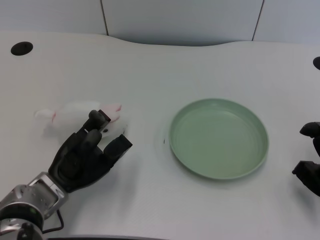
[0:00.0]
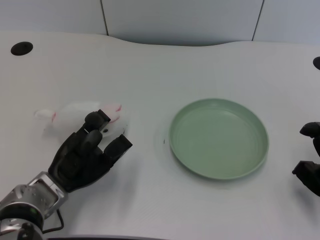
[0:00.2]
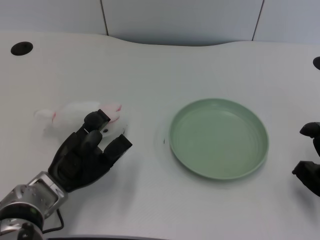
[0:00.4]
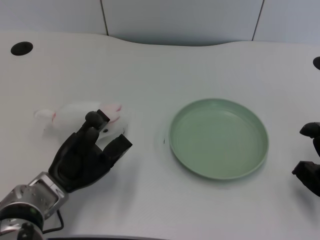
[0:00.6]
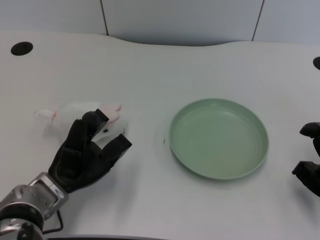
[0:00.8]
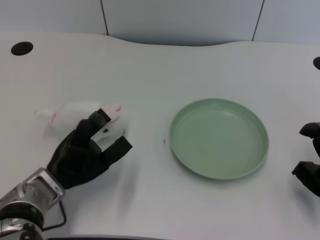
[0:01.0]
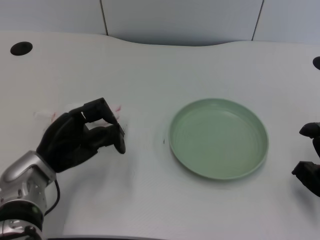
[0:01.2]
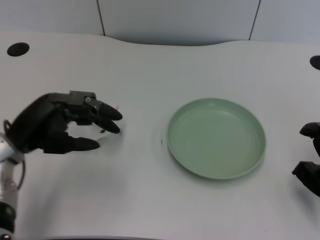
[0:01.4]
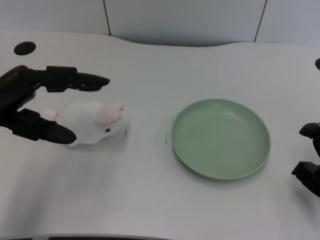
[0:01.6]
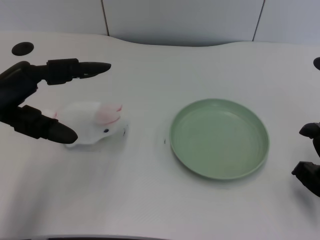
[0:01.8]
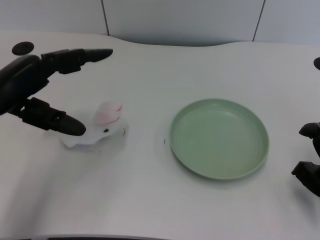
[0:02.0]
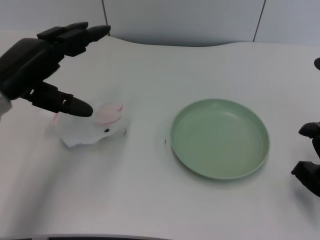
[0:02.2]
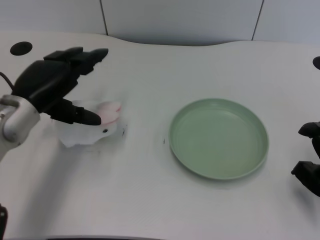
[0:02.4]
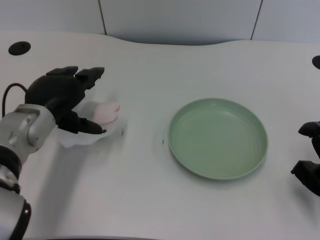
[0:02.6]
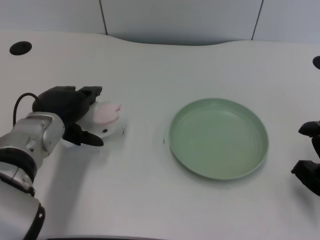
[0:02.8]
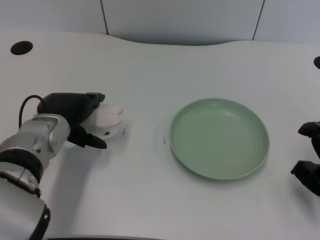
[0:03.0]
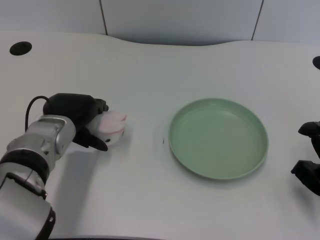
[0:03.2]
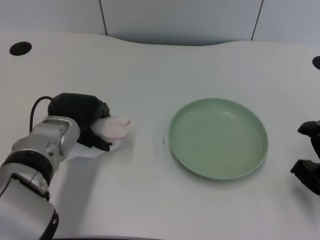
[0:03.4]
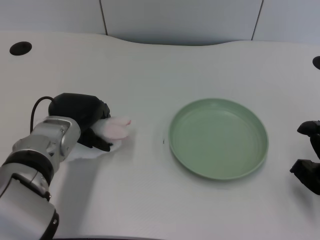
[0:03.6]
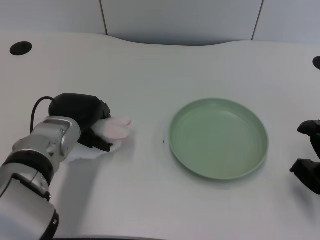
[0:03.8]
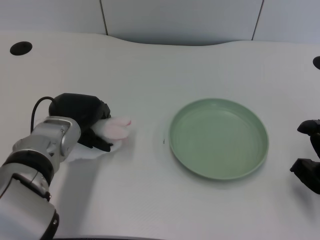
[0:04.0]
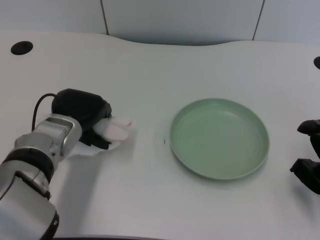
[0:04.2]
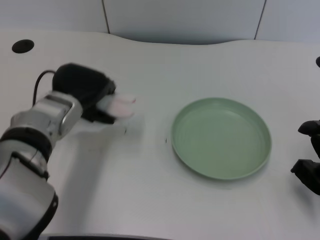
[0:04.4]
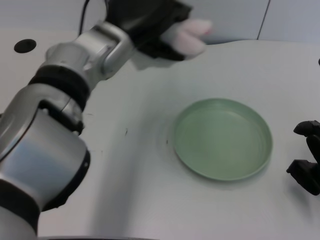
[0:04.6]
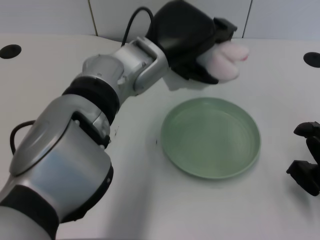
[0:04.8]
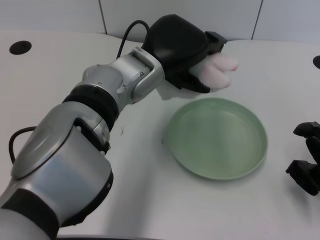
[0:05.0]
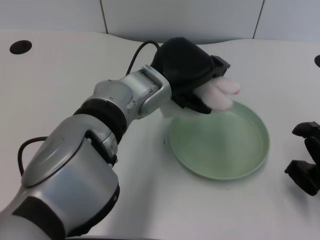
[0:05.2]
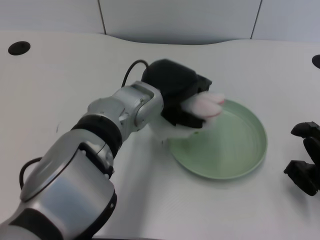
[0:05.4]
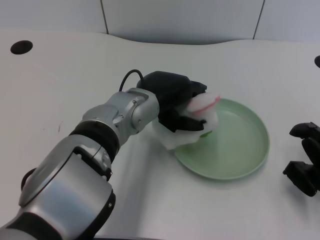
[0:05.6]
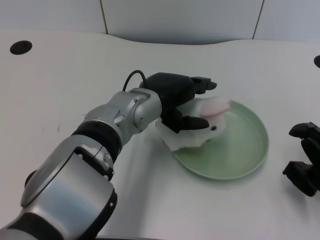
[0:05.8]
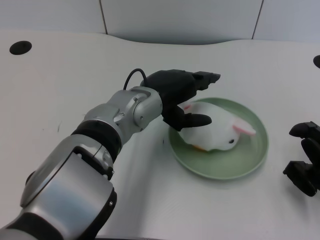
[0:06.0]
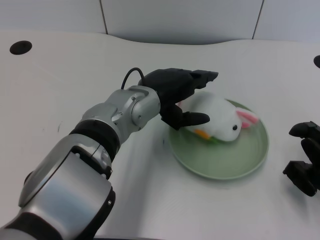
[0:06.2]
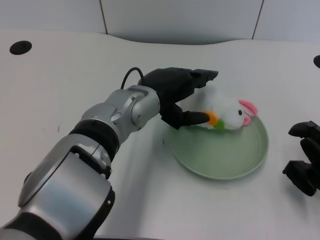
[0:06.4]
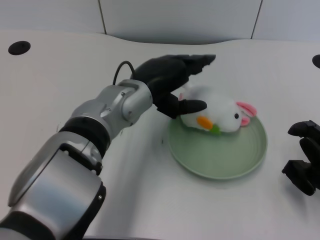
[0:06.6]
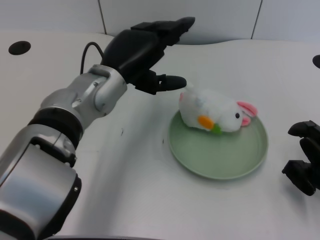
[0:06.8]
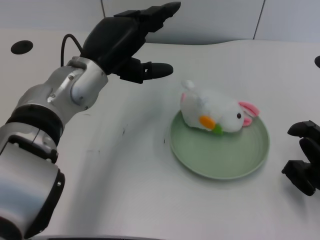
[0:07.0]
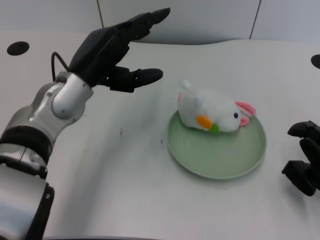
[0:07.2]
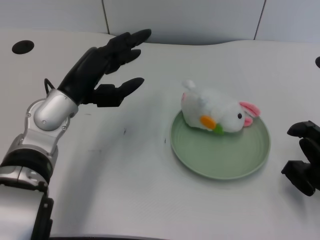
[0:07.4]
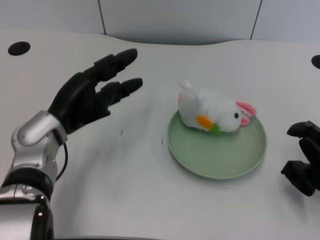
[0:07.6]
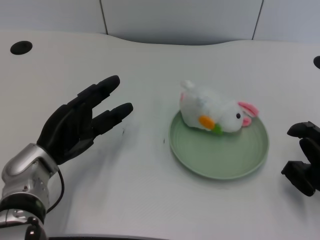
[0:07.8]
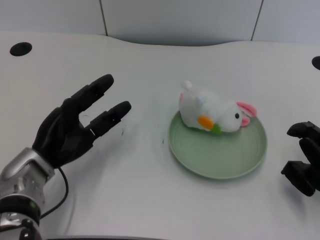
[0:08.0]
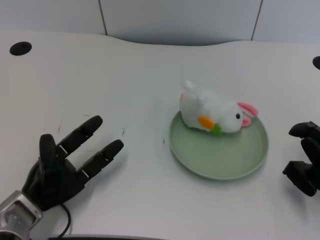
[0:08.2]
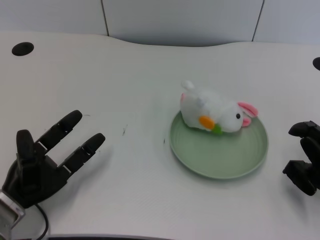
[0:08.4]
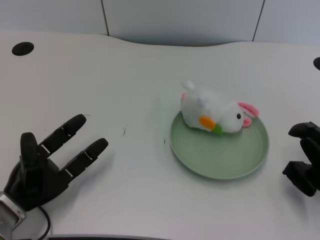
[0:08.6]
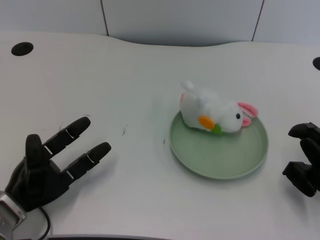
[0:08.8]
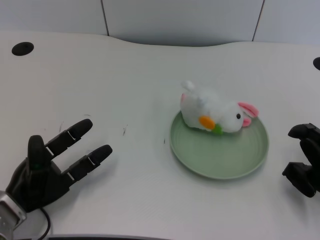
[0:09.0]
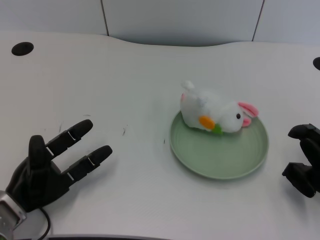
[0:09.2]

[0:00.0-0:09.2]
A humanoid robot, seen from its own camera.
Task of the whole recording: pick up the rabbit doll from the table and place it on the plate.
Step, 0:01.2 to 0:04.2: Grasp the rabbit doll with the left gripper.
Step, 0:04.4 to 0:05.8: Place the rabbit doll into the plate with the left gripper.
0:01.6 to 0:03.0: The left hand is displaced to the right and downward by approximately 10 cm.
0:03.0 to 0:04.6: The left hand moves upward and to the right, roughly 15 cm.
0:04.6 to 0:06.2: The left hand shifts about 5 cm downward.
0:06.2 to 0:07.6: The left hand moves to the left, some 15 cm.
0:07.6 to 0:09.2: The left hand travels downward, backward and to the left by some 15 cm.

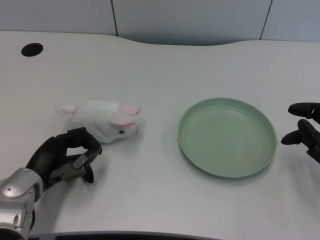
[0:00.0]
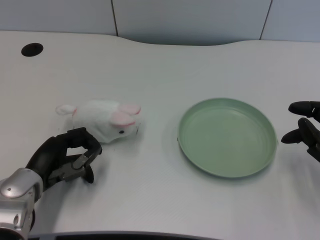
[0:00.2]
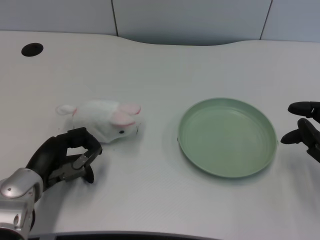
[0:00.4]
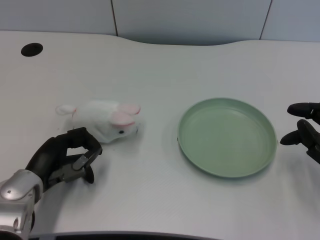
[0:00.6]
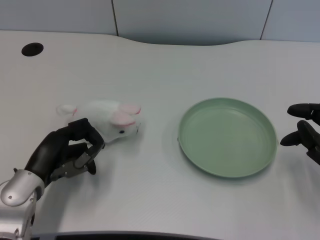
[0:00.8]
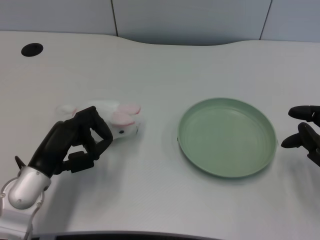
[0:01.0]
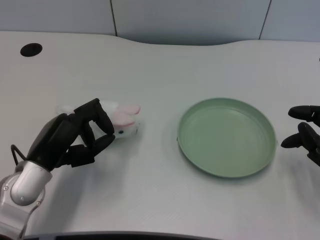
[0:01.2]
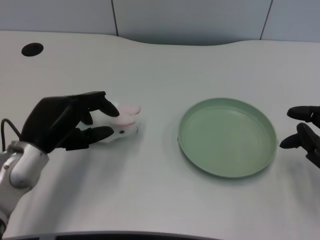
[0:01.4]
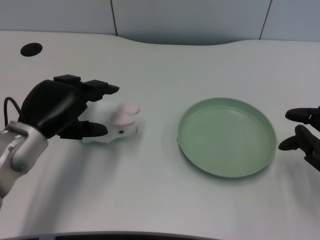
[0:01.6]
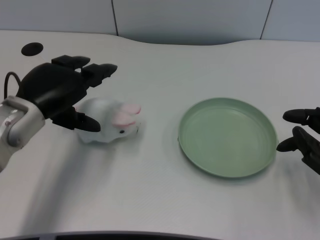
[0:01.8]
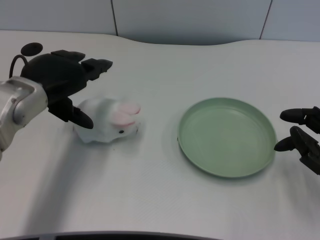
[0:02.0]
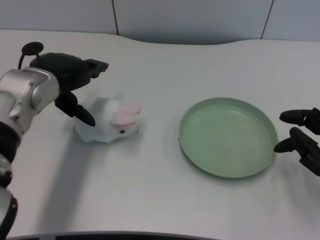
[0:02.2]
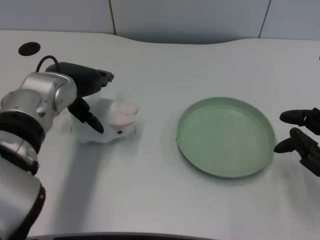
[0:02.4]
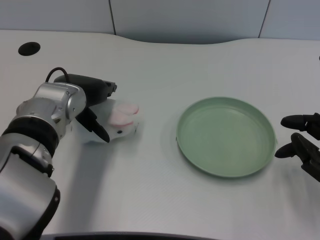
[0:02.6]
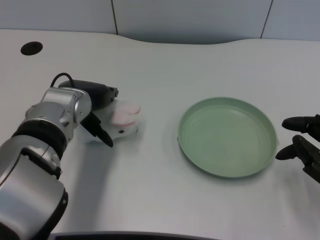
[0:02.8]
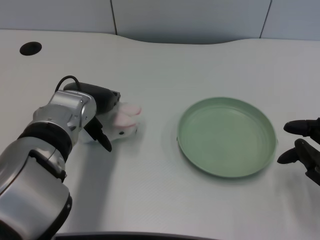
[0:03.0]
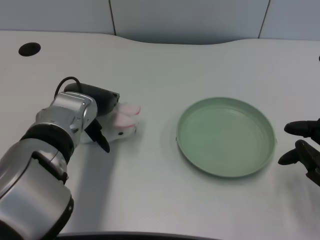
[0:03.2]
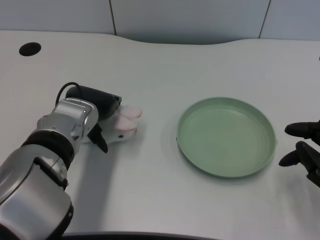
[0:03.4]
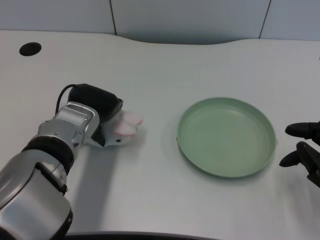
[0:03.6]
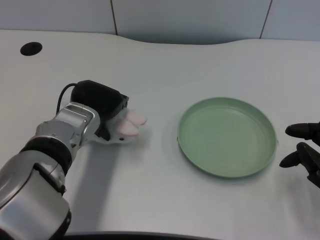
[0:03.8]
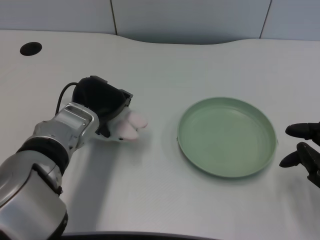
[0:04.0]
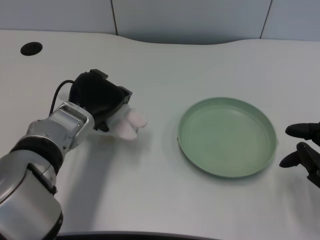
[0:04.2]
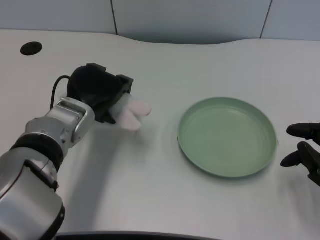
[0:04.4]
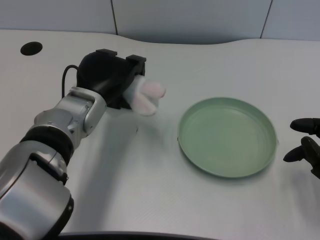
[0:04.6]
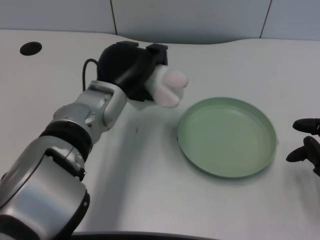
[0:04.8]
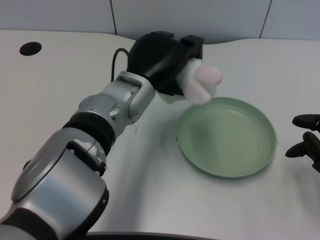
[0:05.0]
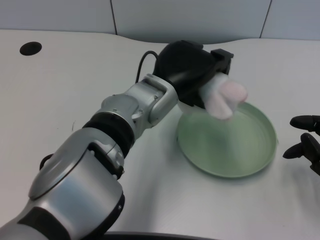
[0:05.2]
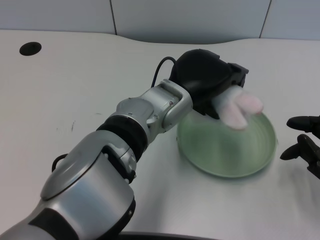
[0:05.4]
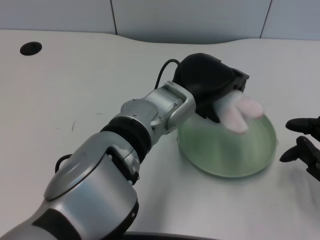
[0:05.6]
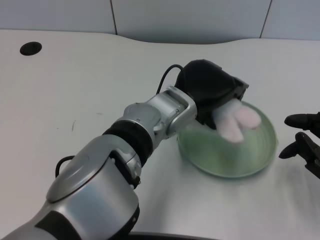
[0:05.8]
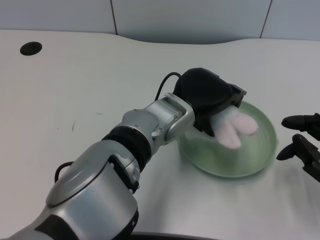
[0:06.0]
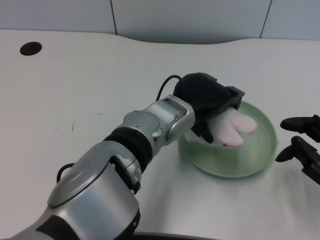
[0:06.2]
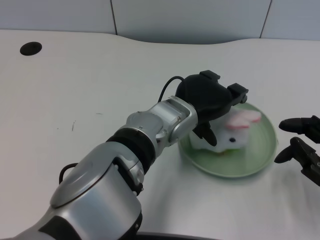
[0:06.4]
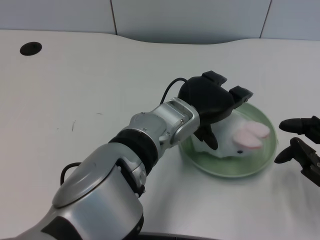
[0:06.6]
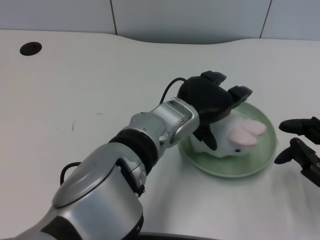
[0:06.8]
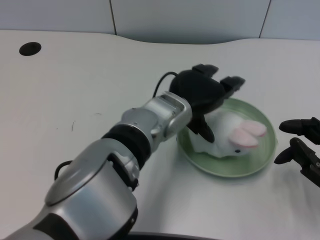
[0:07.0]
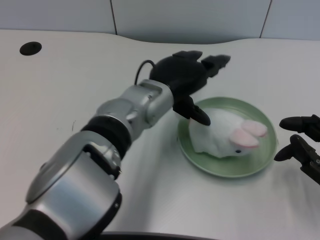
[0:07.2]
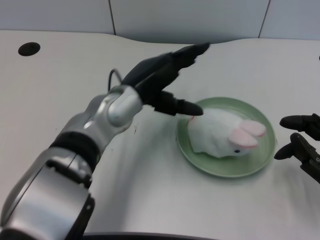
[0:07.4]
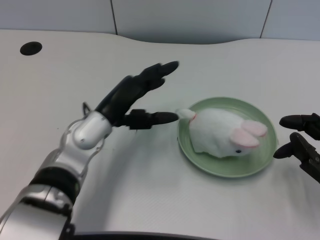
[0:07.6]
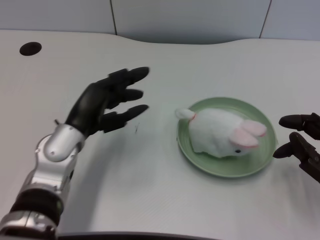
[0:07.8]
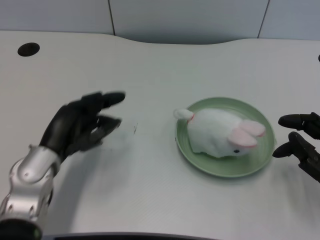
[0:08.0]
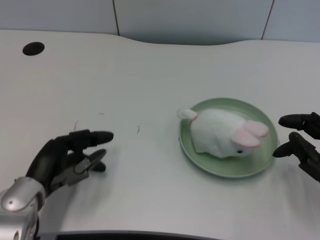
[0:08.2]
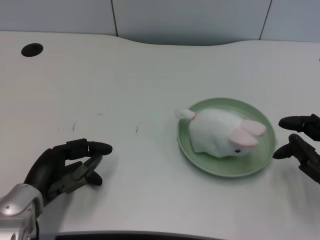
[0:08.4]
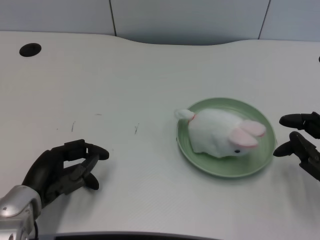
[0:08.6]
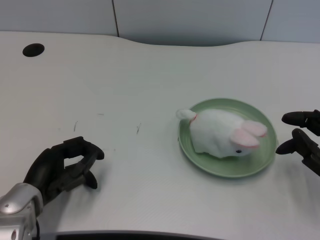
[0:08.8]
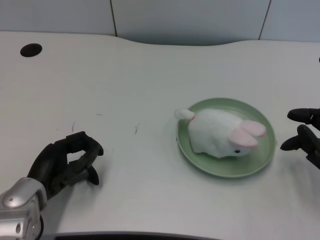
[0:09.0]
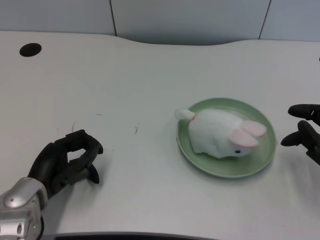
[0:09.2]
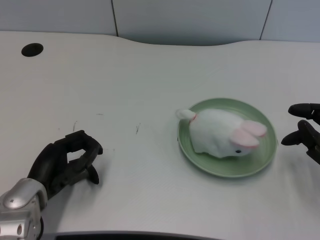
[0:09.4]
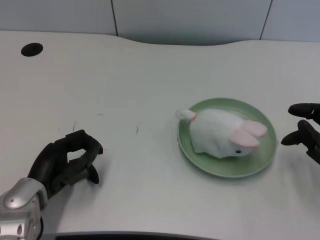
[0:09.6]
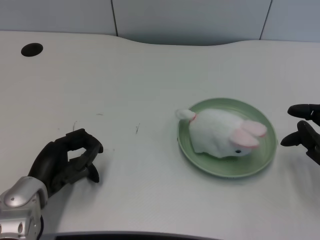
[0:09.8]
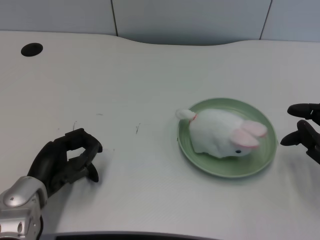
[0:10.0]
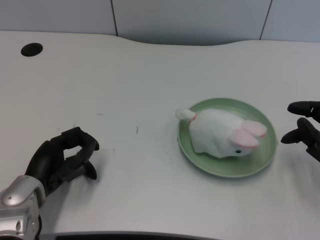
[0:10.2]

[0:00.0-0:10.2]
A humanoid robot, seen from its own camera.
Task of the whole recording: pick up the rabbit doll from the table and place it on the plate.
Step, 0:00.8 to 0:04.0: Grasp the rabbit doll with the left gripper.
Step, 0:04.2 to 0:06.8: Place the rabbit doll into the plate with the left gripper.
0:01.4 to 0:03.0: The left hand is displaced to the right and forward by roughly 10 cm.
0:04.4 to 0:05.8: The left hand heads to the right, covering roughly 15 cm.
0:07.2 to 0:08.8: The left hand moves to the left, downward and backward, about 25 cm.
0:08.8 to 0:10.2: The hands make only small movements.

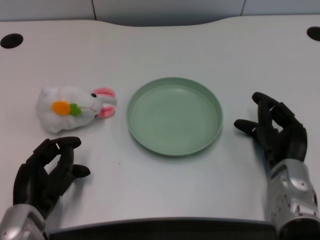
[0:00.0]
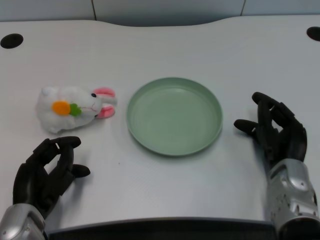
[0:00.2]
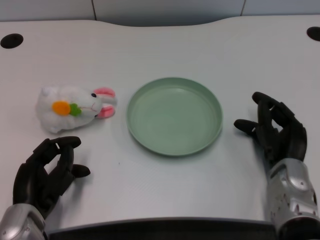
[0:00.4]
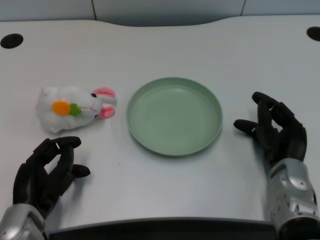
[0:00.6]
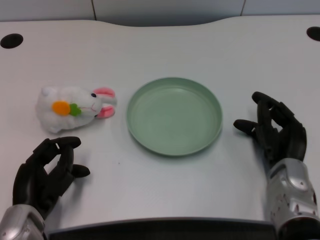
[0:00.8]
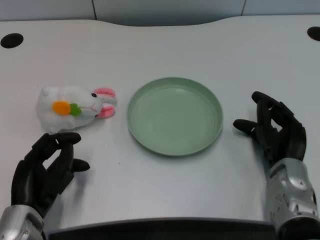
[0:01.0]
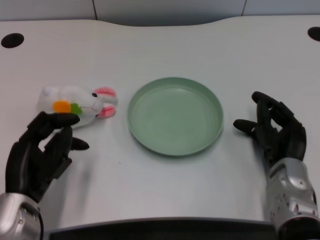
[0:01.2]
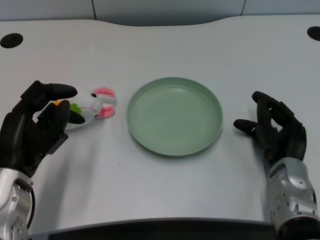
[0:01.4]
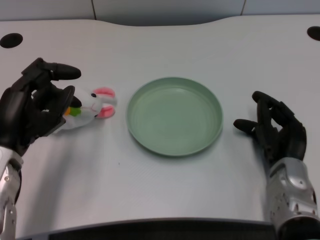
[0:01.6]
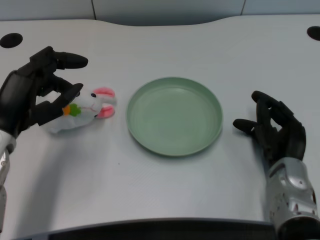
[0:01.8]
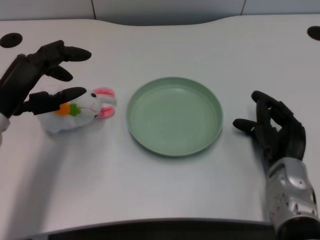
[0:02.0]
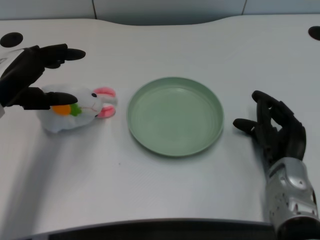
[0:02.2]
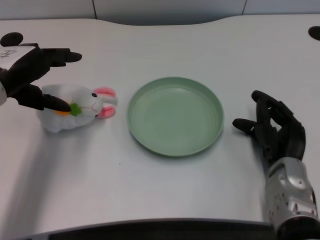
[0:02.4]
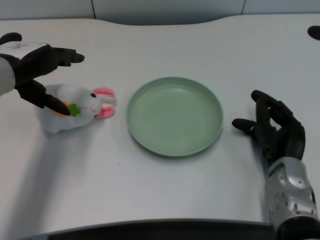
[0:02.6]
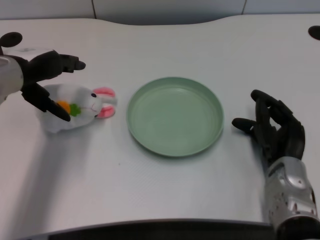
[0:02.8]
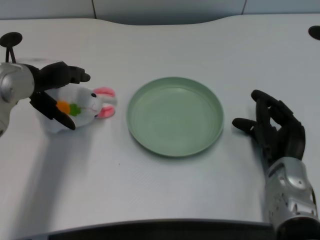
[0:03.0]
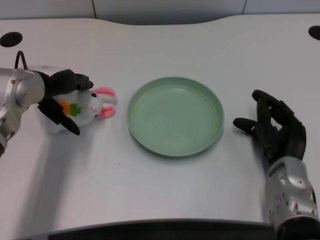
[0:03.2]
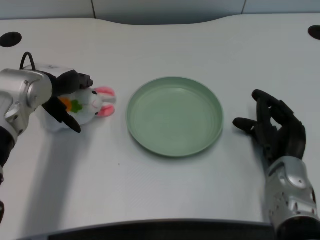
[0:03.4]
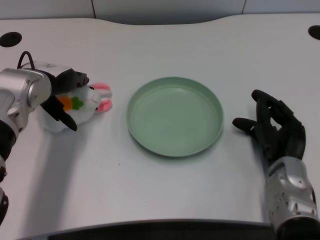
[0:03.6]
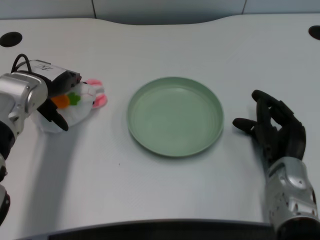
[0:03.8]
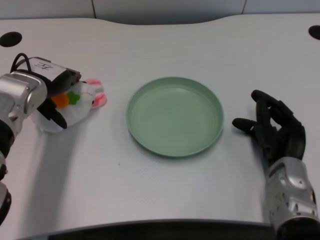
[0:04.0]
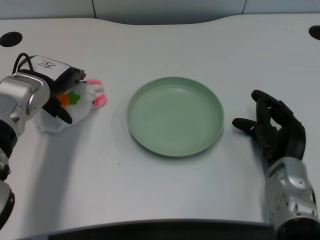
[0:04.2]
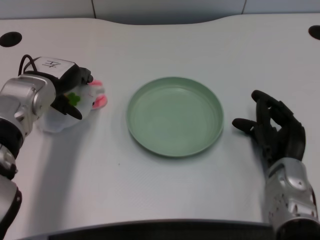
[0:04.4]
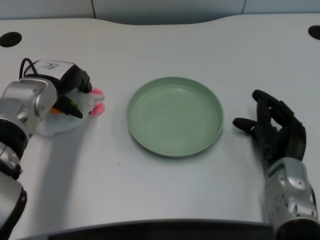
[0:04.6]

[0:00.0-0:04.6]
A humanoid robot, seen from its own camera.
Task of the whole recording: pick up the rabbit doll from the table and place it on the plate.
0:01.6 to 0:03.0: The left hand goes about 10 cm forward and upward.
0:03.0 to 0:04.6: The left hand moves downward, roughly 5 cm.
